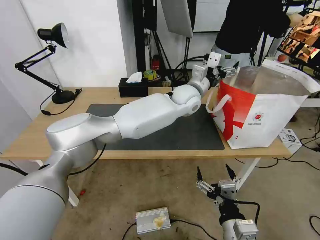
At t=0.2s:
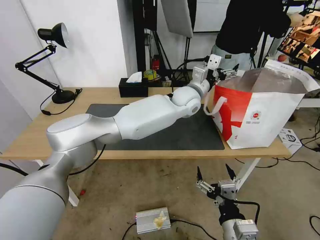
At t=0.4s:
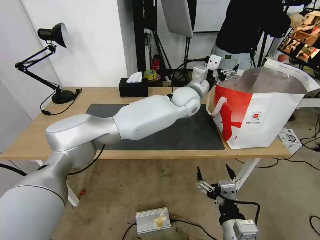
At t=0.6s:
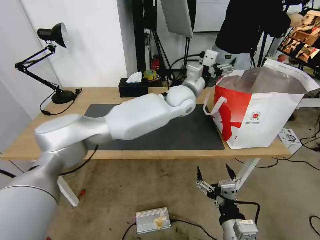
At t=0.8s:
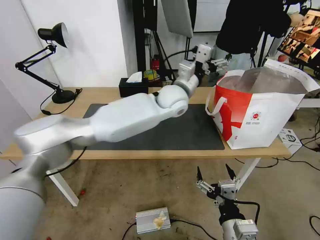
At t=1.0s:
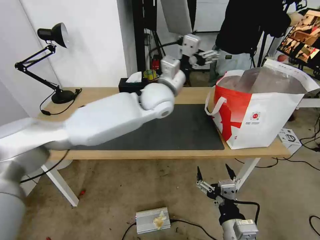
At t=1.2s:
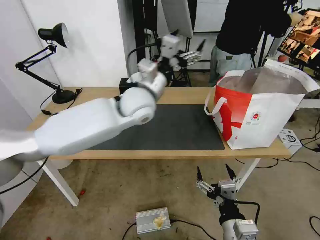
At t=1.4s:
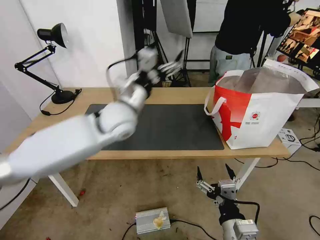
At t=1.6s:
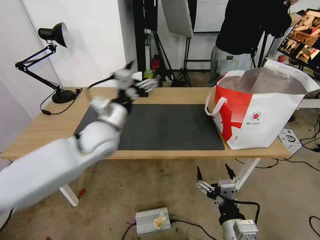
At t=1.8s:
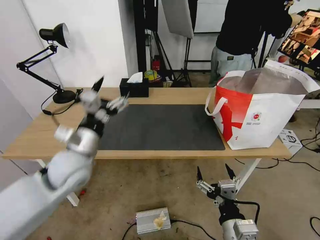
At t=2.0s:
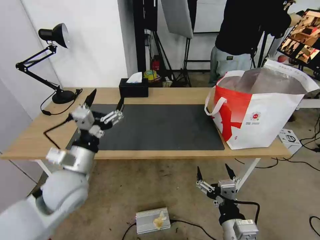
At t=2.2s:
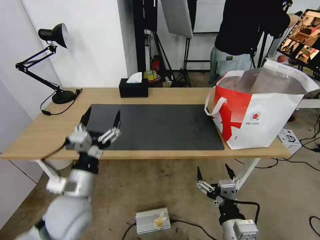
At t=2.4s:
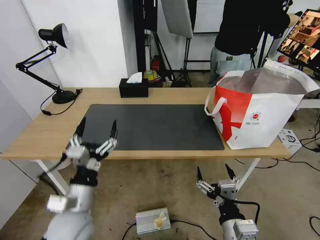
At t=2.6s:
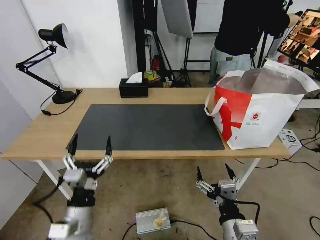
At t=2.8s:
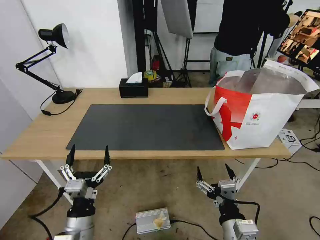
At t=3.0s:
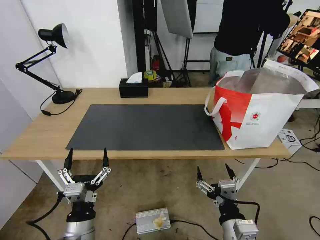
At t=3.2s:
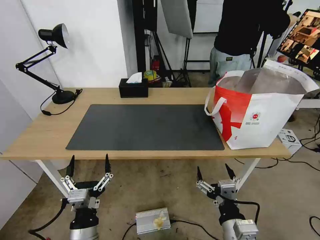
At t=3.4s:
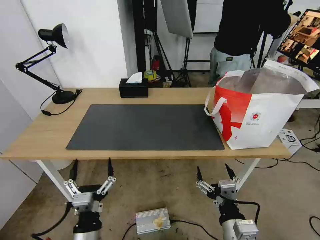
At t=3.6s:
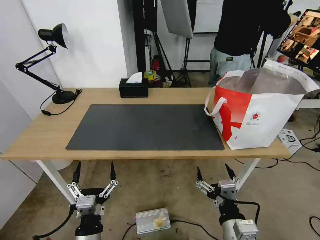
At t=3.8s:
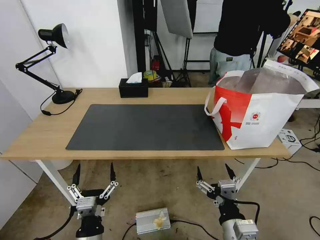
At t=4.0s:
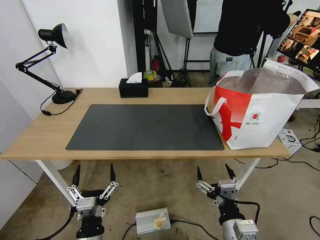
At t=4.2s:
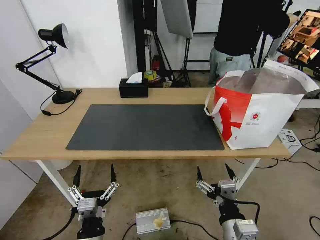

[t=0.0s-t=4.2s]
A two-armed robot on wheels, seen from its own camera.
Task of the whole recording: Pick up the trash from the table and place it into the takeout bag.
t=0.0s to t=1.4s: The left gripper shifts some 25 cm to the left and backward.
t=1.4s to t=2.8s: The left gripper heads backward and downward, covering roughly 35 cm.
t=2.8s to t=4.2s: The left gripper moves some 5 cm.
